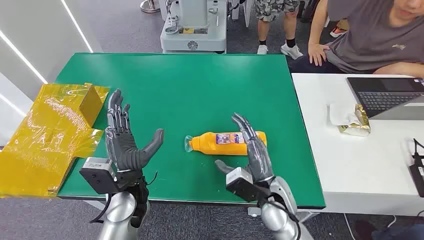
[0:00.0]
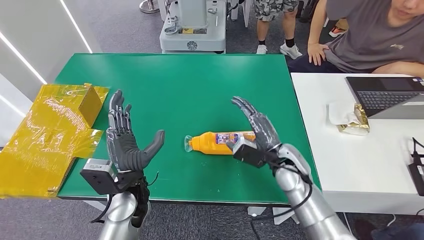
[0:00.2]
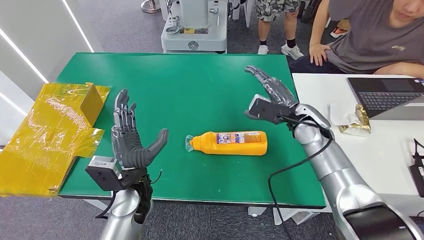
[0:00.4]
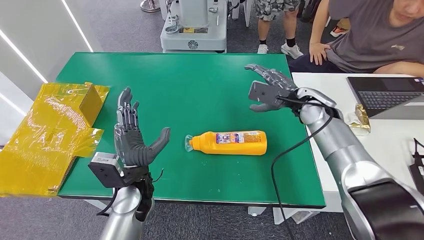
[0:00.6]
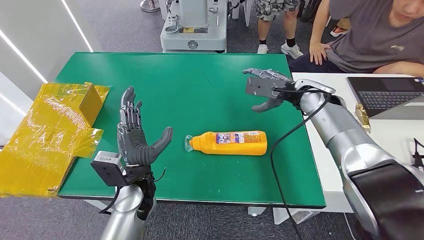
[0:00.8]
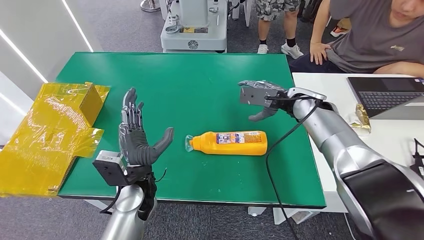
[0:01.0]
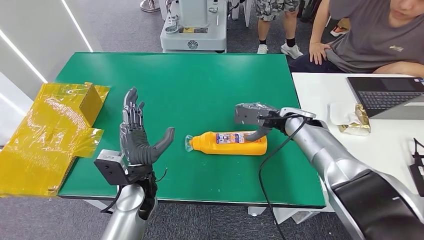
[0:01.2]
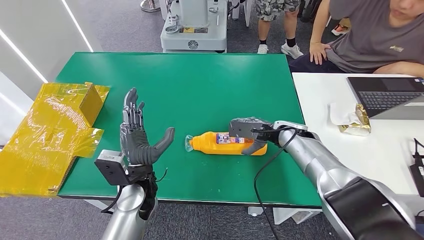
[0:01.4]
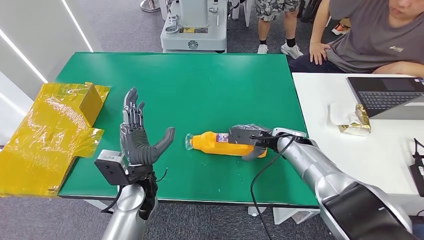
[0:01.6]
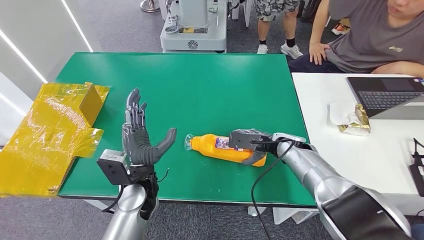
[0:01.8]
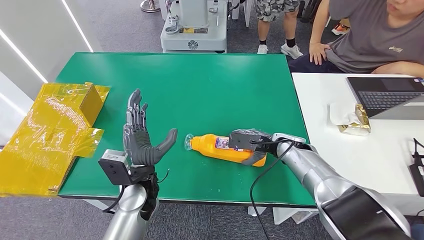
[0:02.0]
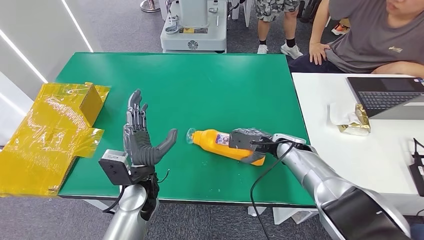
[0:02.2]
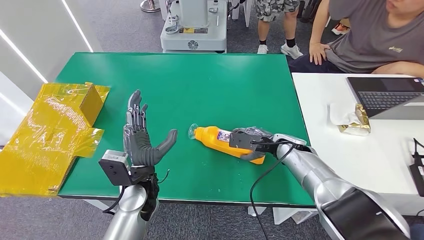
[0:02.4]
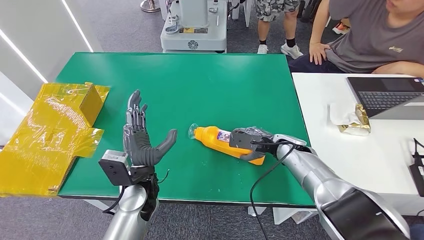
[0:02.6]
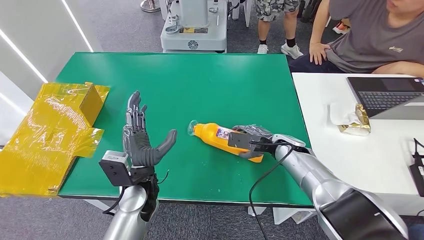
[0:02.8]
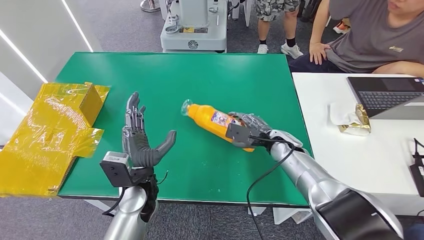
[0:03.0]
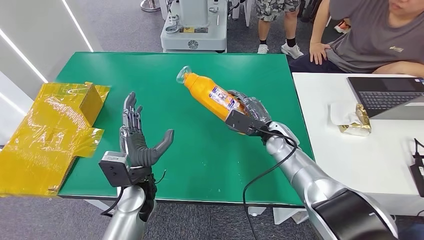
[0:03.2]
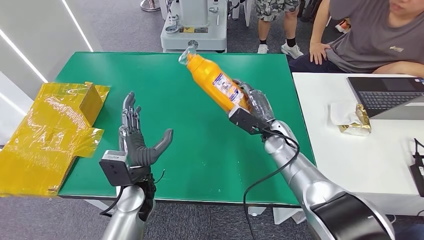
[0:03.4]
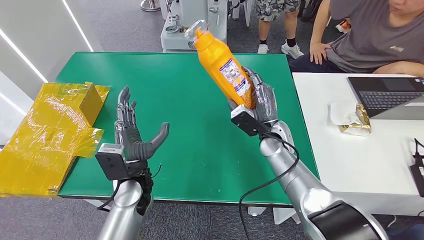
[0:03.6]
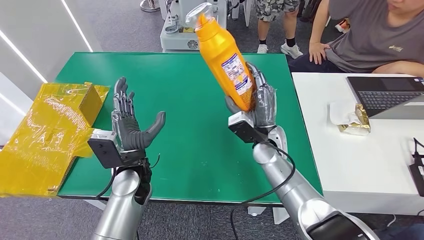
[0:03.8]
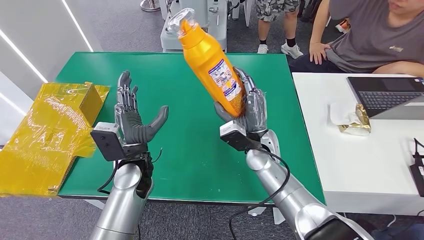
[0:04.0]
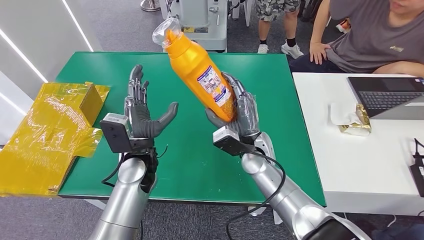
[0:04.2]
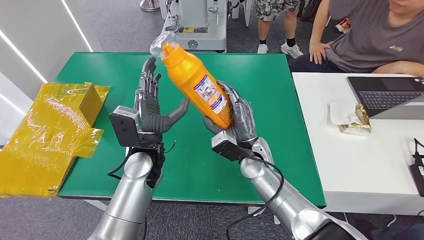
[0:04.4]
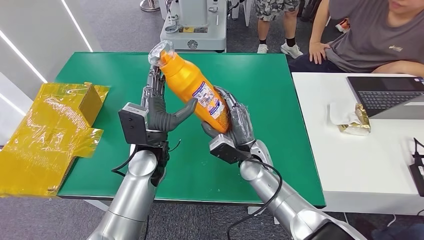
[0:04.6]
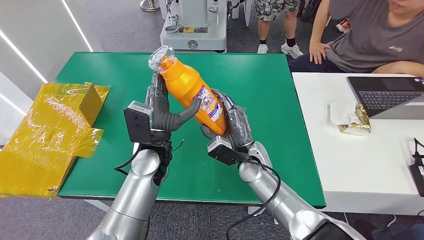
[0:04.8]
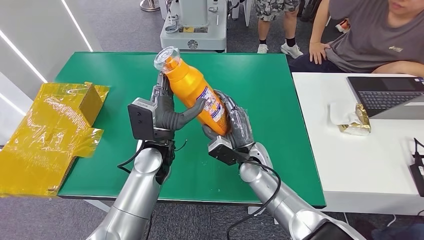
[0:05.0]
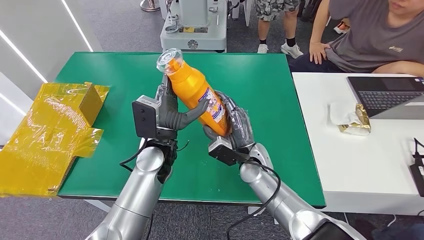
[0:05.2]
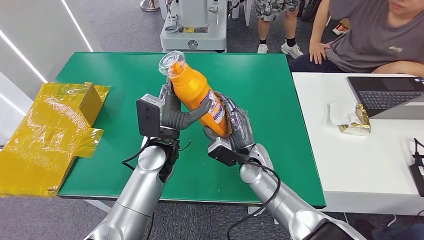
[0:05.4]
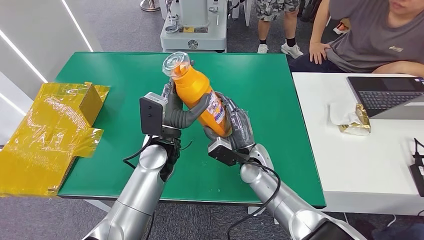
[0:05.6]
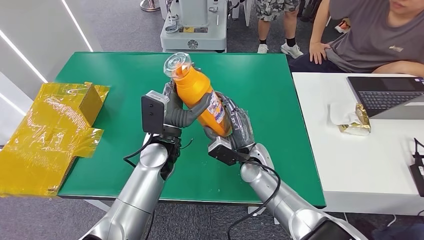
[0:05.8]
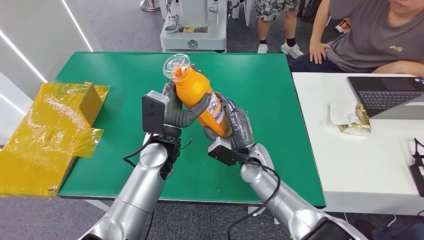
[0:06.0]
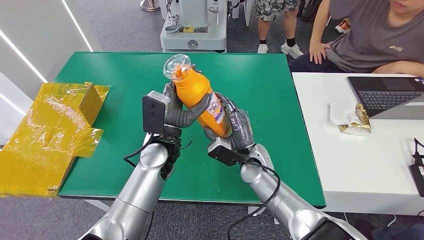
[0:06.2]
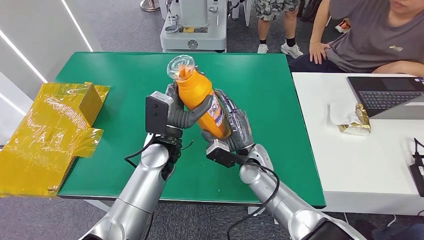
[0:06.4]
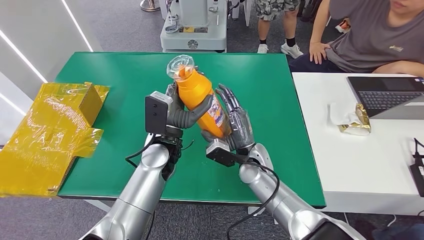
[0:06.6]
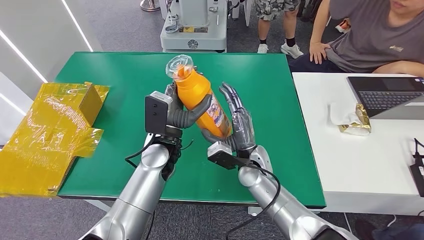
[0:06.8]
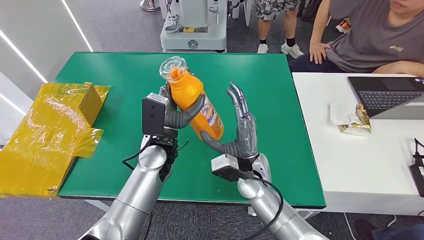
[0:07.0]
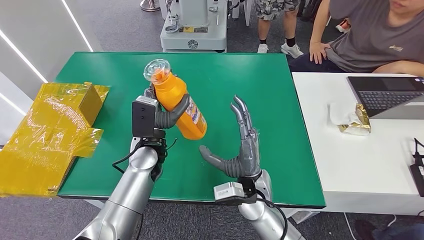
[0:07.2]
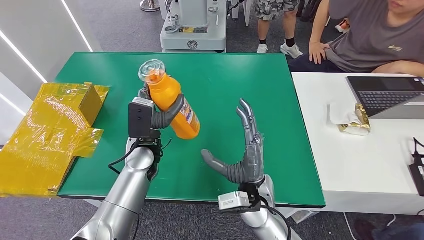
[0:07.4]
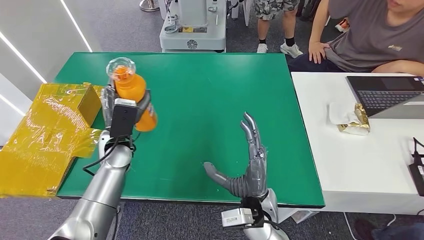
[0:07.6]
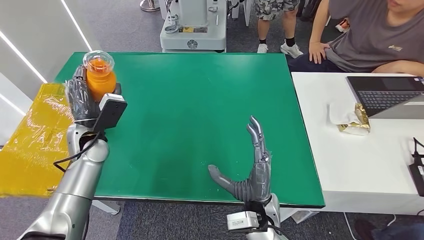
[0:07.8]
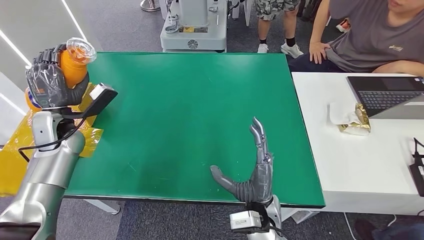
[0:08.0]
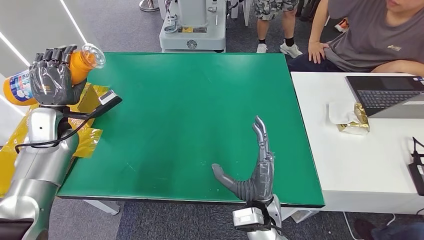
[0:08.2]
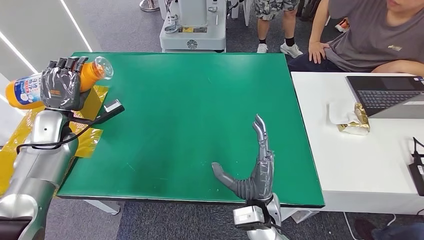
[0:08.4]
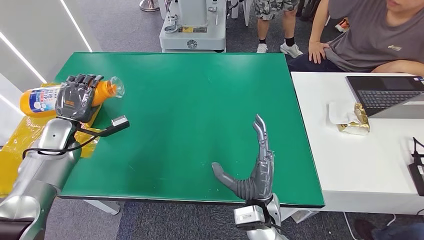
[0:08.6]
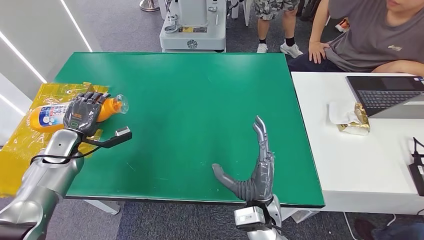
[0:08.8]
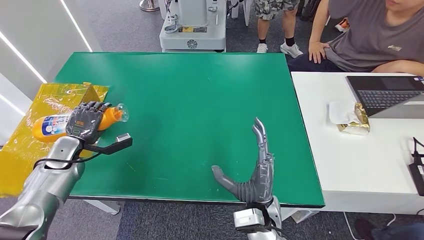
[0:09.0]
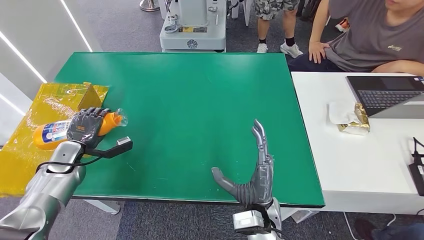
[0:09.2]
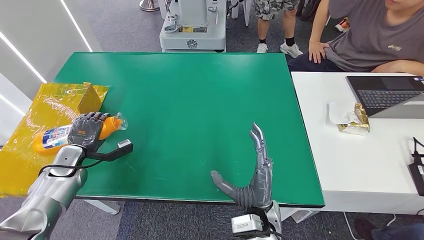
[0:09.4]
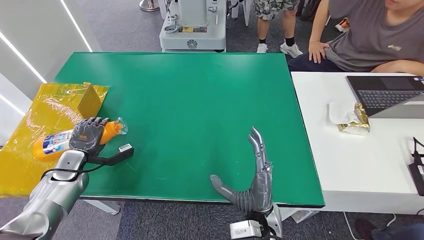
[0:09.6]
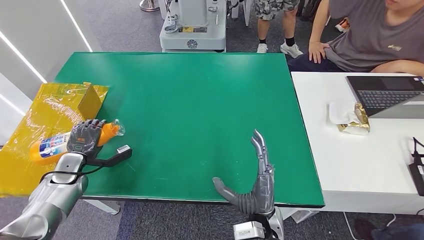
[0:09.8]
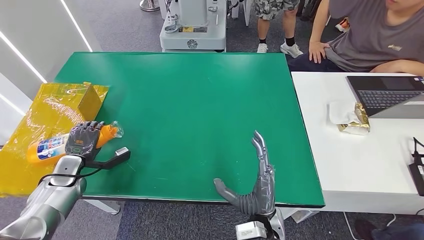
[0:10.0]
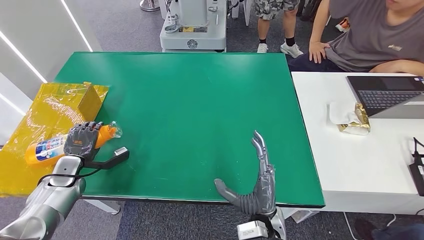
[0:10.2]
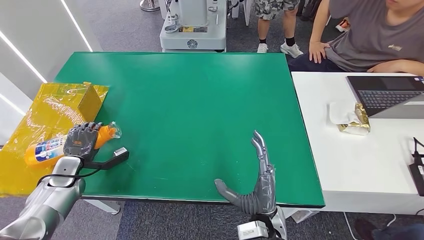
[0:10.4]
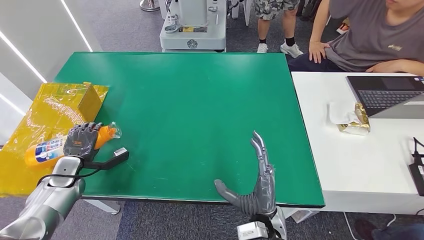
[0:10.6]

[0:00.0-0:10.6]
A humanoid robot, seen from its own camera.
Step, 0:00.0 to 0:03.8: Pick up the bottle from the table.
0:04.6 to 0:06.0: The hands make only small movements.
0:07.6 to 0:09.0: The left hand goes about 20 cm to the left.
0:09.0 to 0:10.6: The left hand shifts by approximately 5 cm.

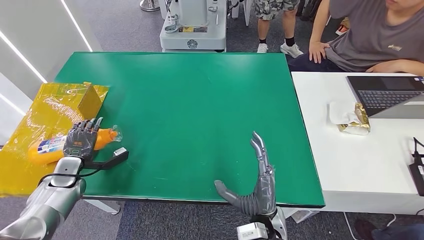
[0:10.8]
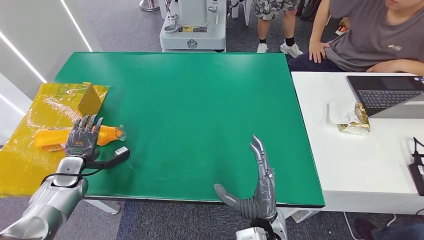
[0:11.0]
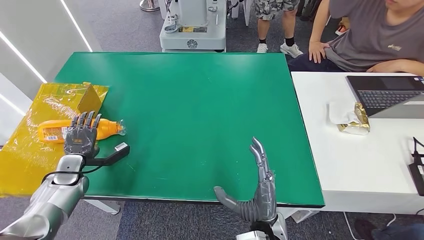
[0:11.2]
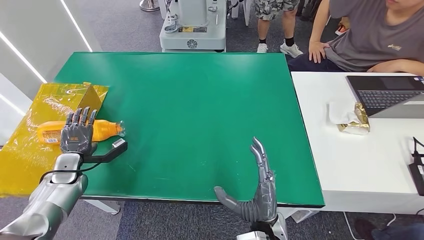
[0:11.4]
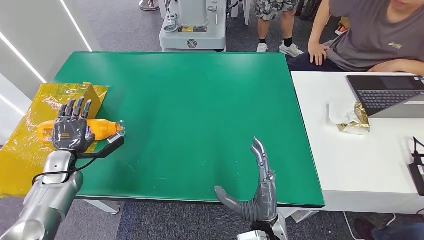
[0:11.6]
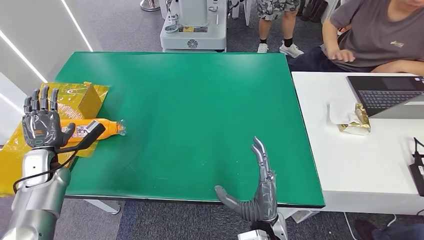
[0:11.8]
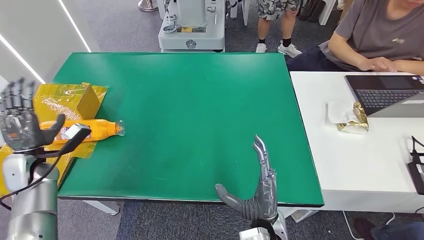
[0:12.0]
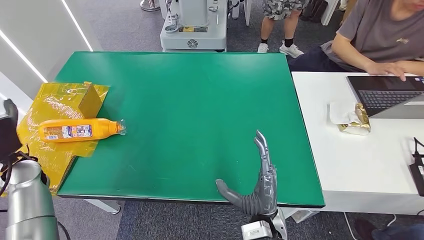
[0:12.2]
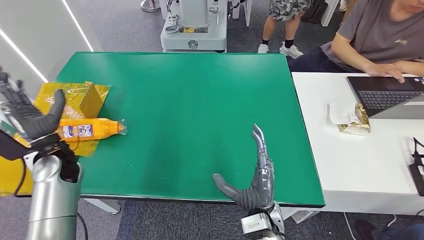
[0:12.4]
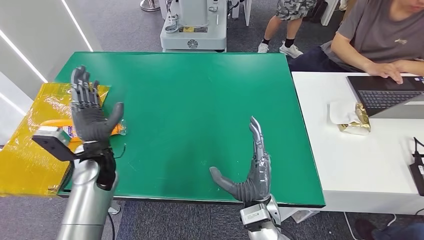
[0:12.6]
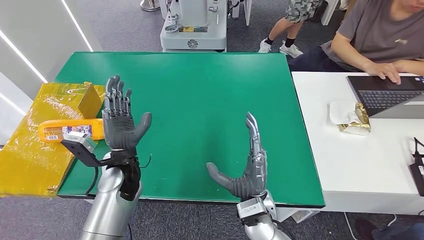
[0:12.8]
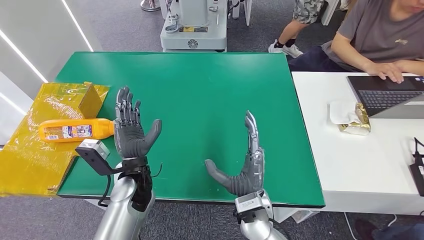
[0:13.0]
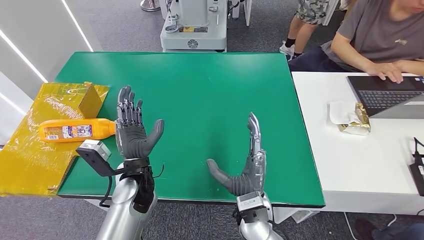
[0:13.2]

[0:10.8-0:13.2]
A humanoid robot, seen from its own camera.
Step, 0:10.8 to 0:13.2: Turn the bottle to the front side.

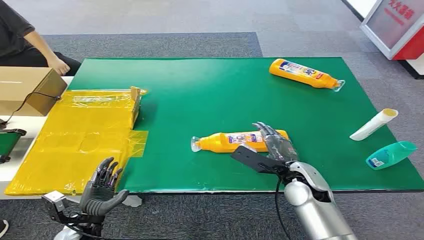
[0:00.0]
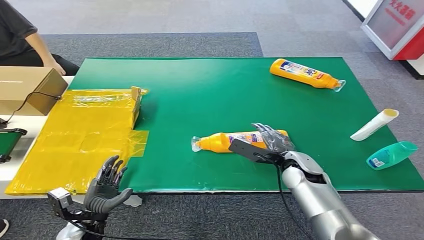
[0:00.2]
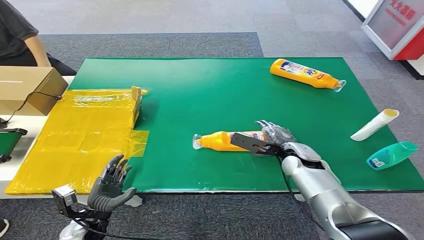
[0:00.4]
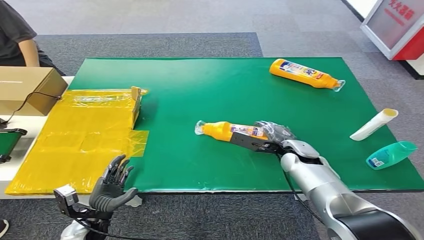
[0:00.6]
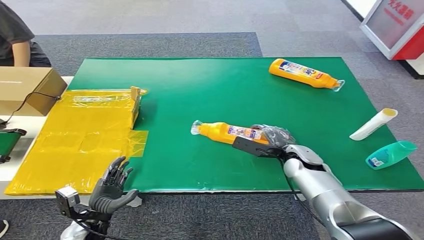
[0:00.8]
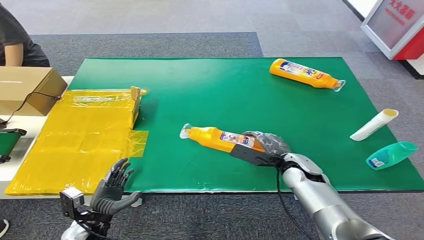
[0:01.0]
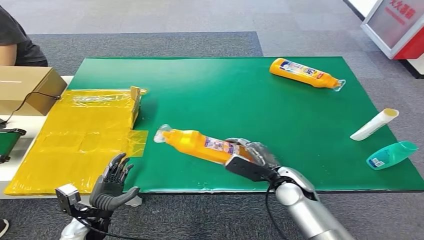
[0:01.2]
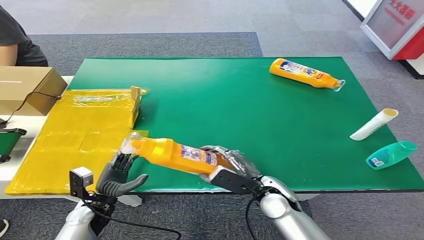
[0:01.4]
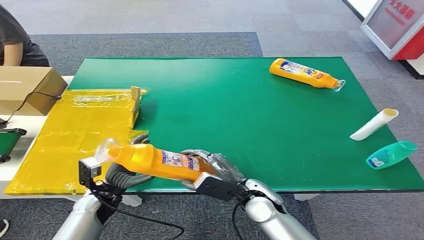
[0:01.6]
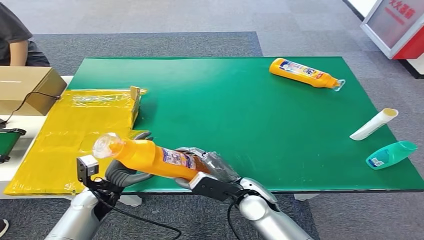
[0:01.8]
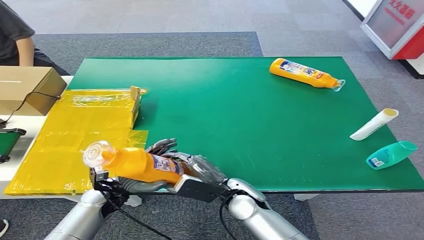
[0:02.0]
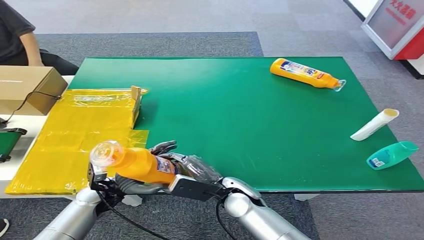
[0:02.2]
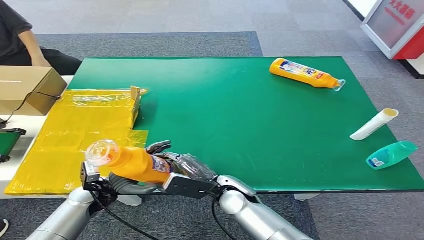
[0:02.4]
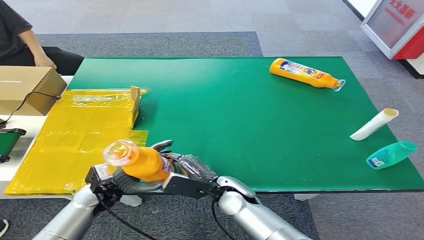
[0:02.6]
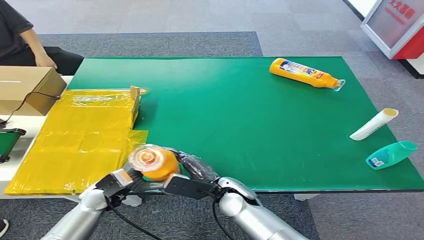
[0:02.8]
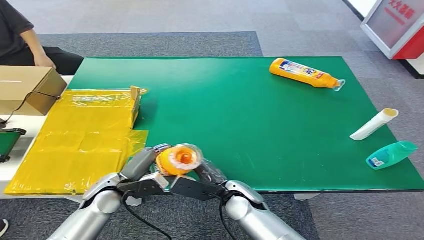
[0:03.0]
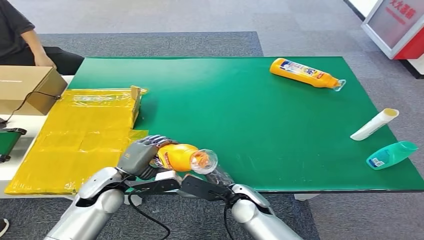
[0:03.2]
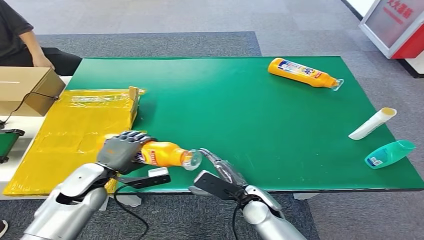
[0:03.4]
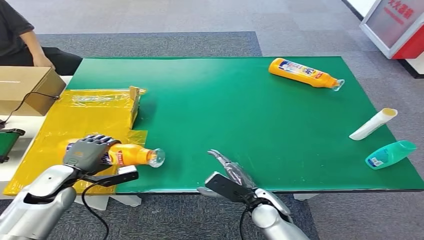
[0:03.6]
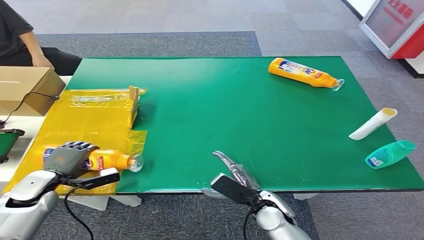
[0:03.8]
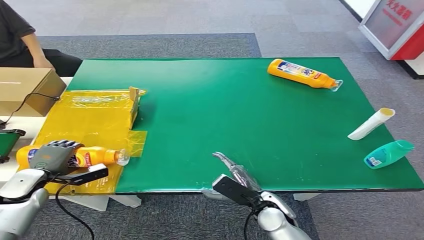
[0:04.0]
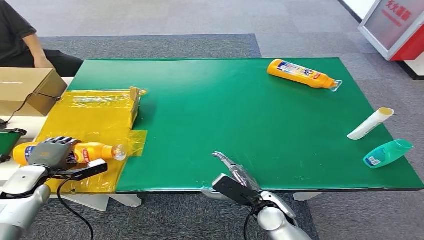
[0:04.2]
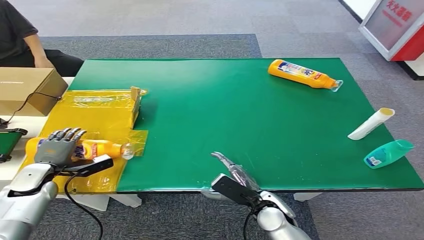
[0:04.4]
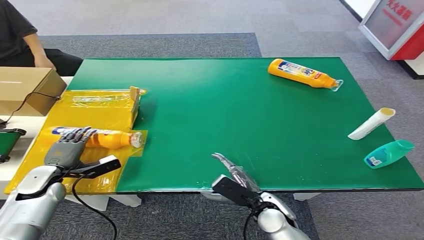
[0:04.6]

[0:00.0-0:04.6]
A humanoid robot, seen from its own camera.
Step, 0:00.0 to 0:01.0: Pick up the bottle from the table.
Step, 0:01.2 to 0:04.6: Turn the bottle to the front side.
0:01.6 to 0:03.0: The right hand changes place by approximately 5 cm; the left hand heads upward, covering approximately 5 cm.
